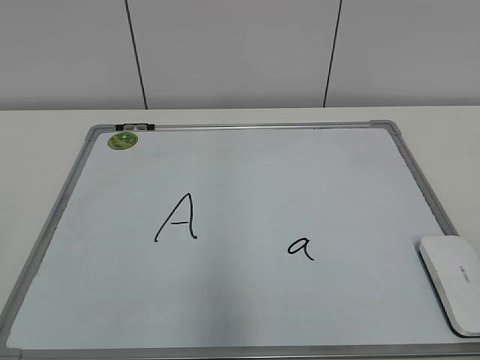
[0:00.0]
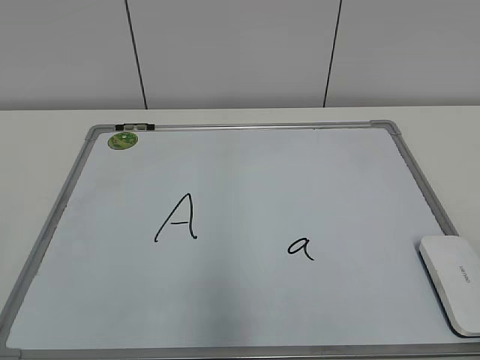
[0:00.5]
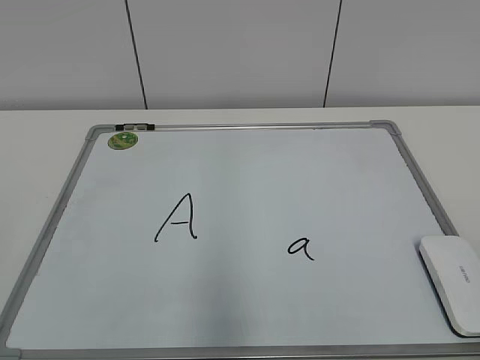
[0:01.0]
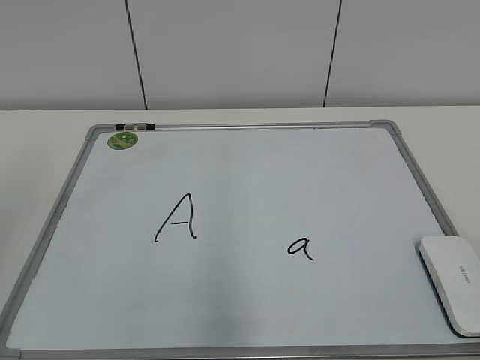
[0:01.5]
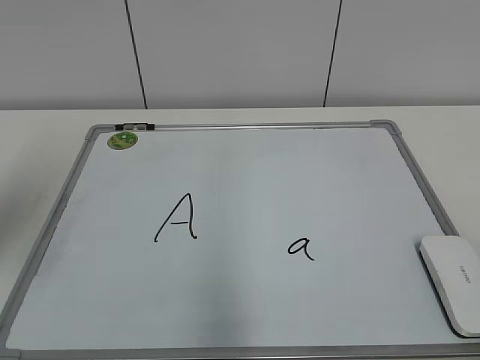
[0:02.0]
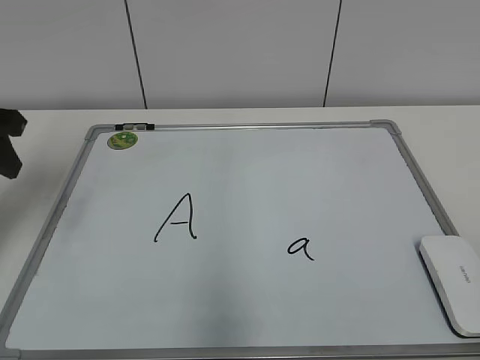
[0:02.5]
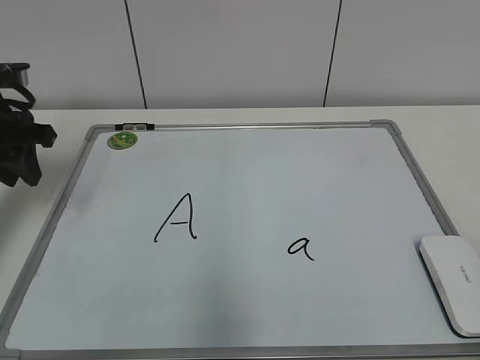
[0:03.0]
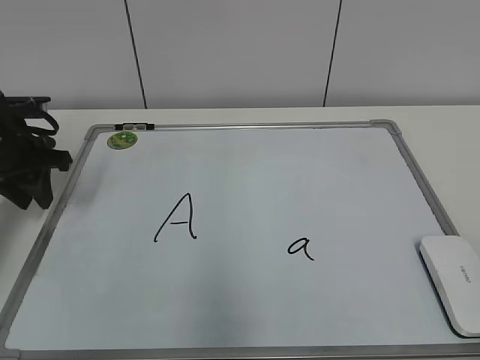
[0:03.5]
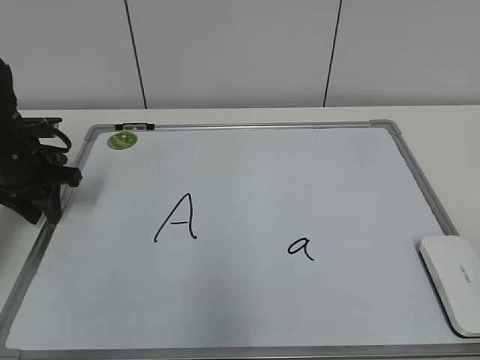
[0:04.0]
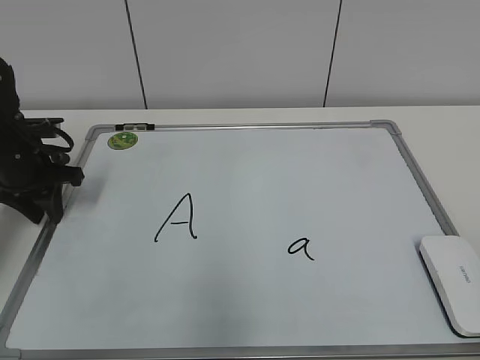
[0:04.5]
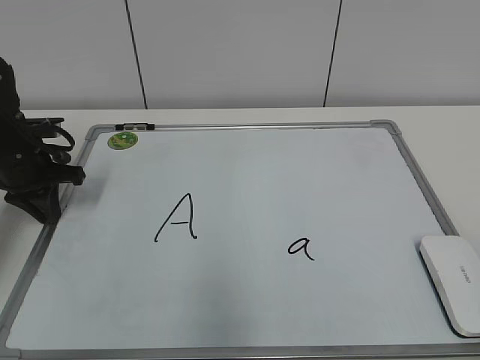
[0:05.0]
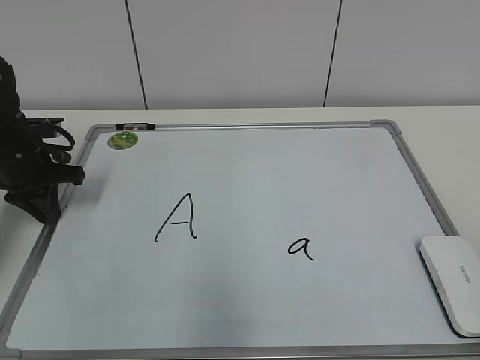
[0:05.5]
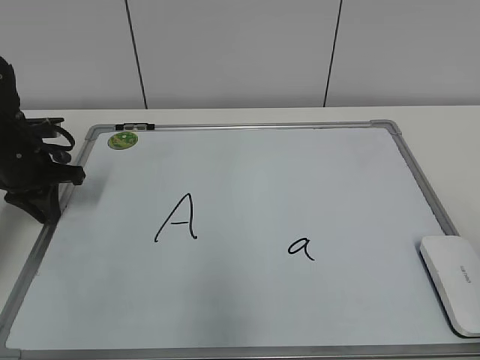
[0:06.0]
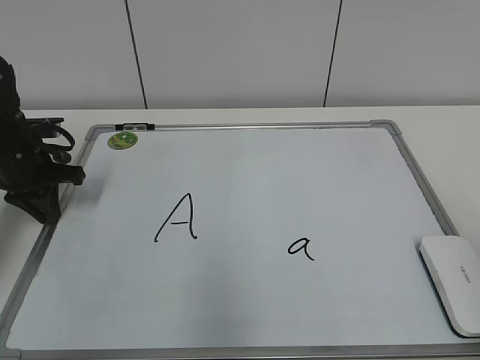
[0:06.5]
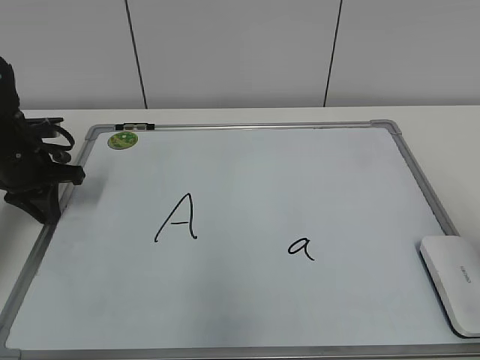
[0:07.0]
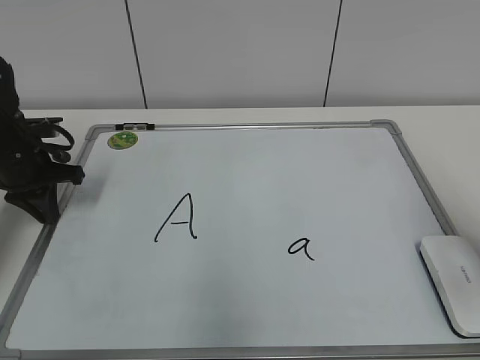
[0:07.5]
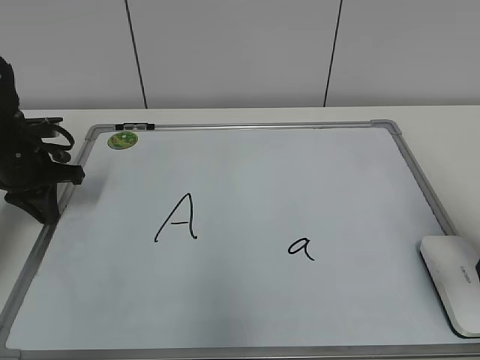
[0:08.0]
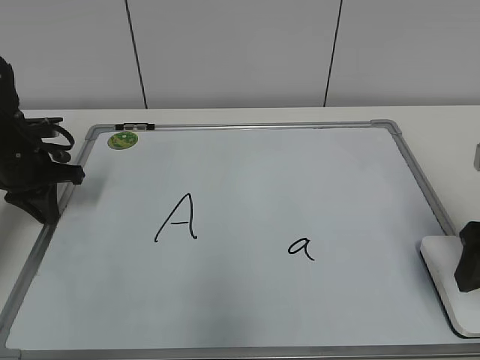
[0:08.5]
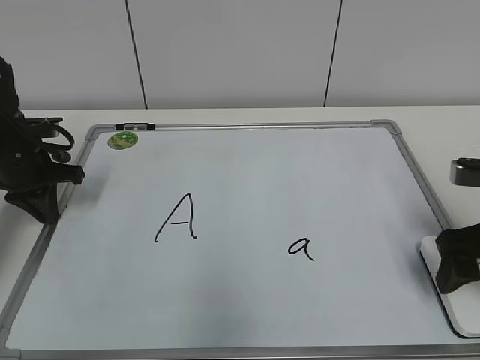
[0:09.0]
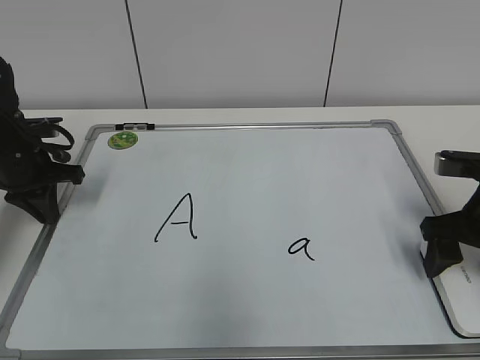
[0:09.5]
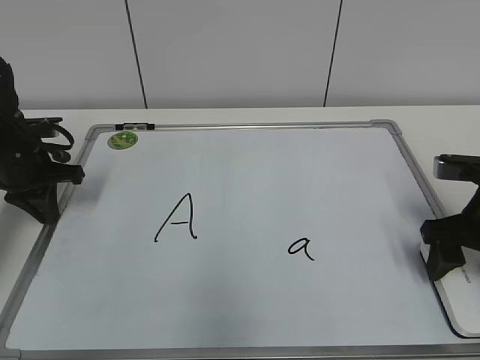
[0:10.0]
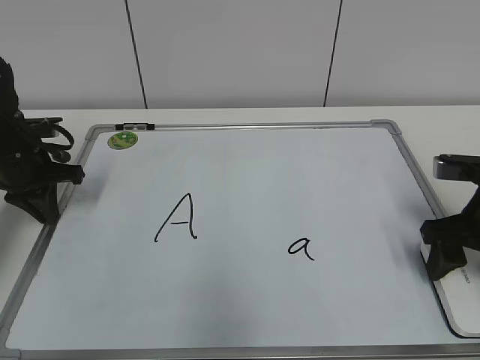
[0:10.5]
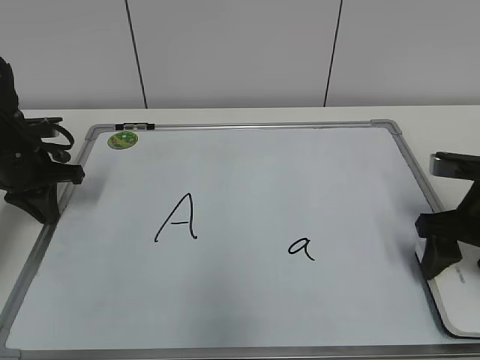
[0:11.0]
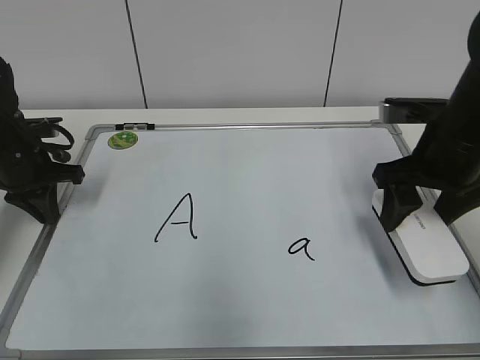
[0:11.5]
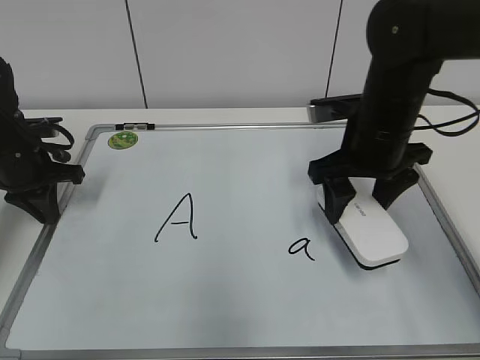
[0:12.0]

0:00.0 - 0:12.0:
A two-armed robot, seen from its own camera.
Task of the whole recording: pick up the eraser on the blackboard and erase the letter "a".
Step, 0:00.0 - 0:04.5: Hold the drawing board steady with your left hand.
Step, 0:05.0 - 0:10.0: Grab the eraser with your right hand.
0:02.0 - 0:04.0: The left gripper is displaced downward and forward by about 25 cm.
0:06.0 - 0:08.0: The right gripper goes about 15 cm forward, and opens its fingers.
0:08.0 - 0:10.0: The right gripper goes approximately 10 cm downward and forward.
0:10.0 - 0:12.0: The right gripper is displaced to the left, forward and upward by some 15 cm.

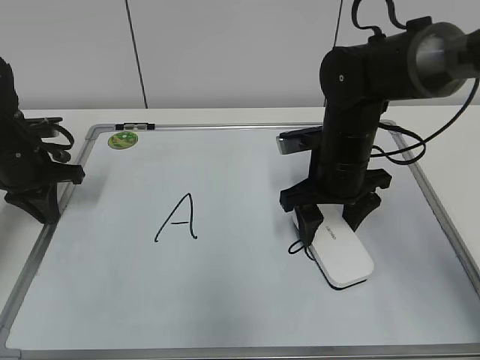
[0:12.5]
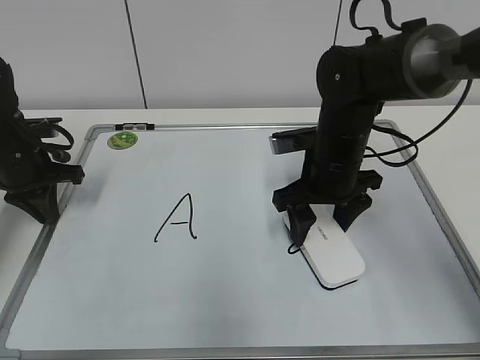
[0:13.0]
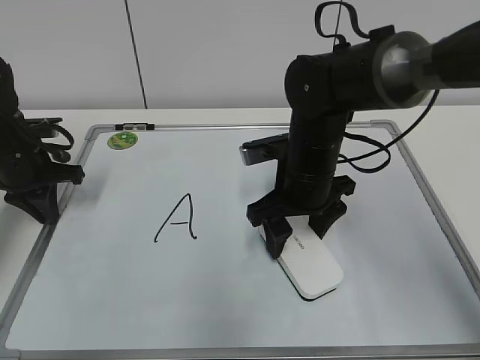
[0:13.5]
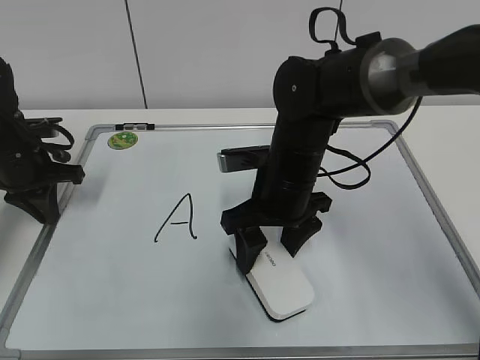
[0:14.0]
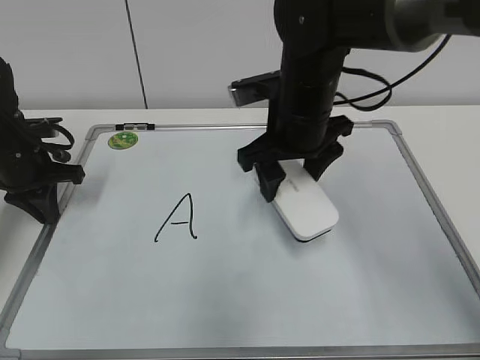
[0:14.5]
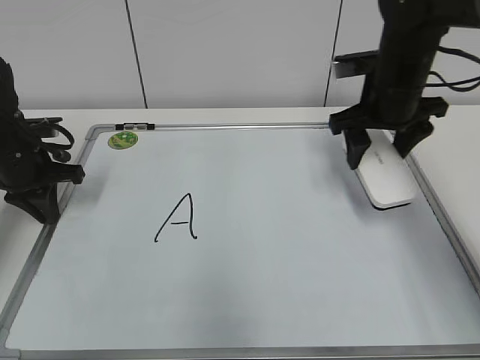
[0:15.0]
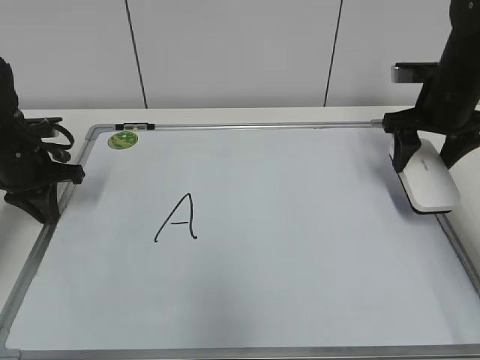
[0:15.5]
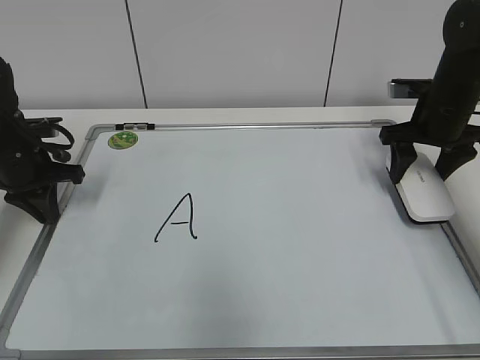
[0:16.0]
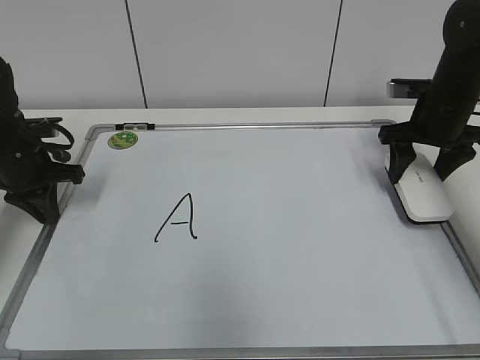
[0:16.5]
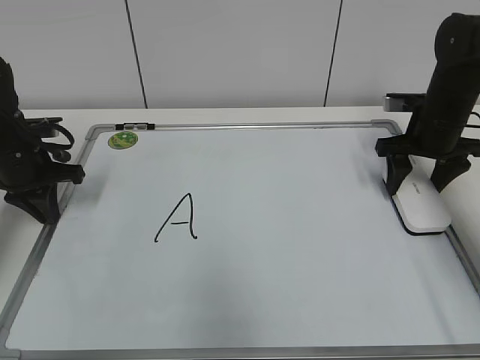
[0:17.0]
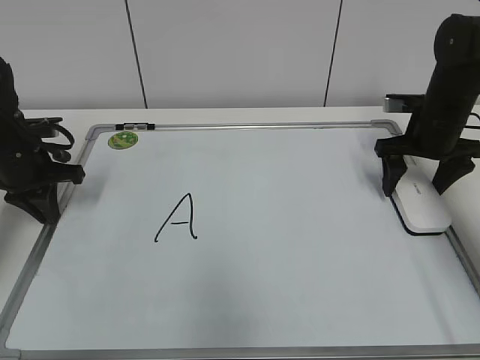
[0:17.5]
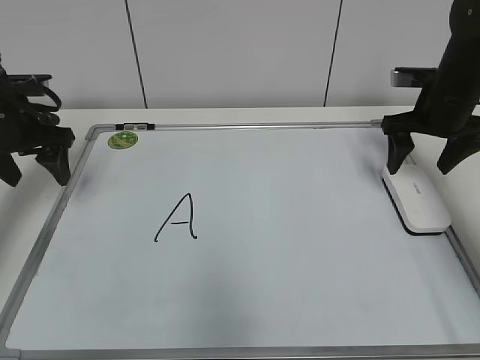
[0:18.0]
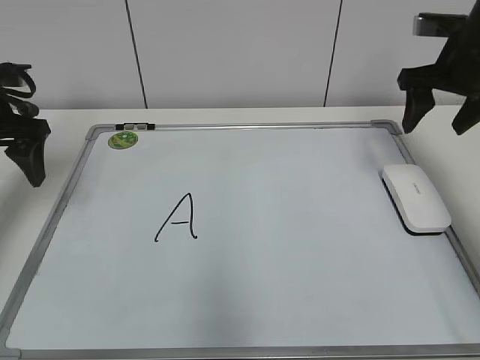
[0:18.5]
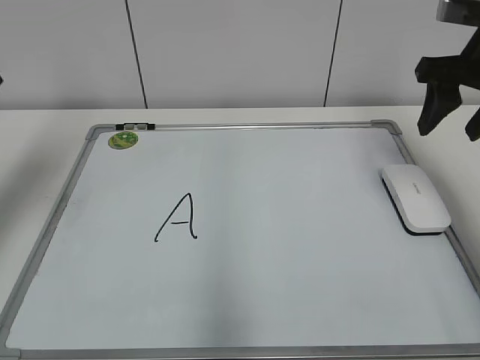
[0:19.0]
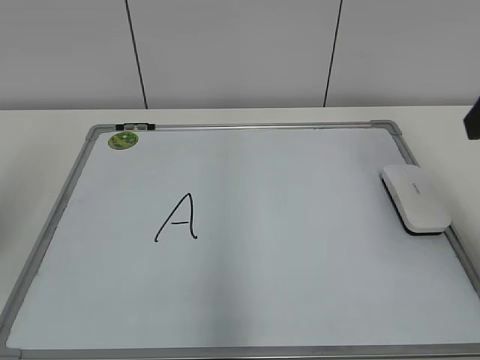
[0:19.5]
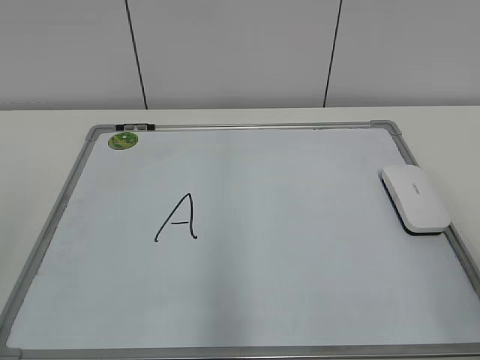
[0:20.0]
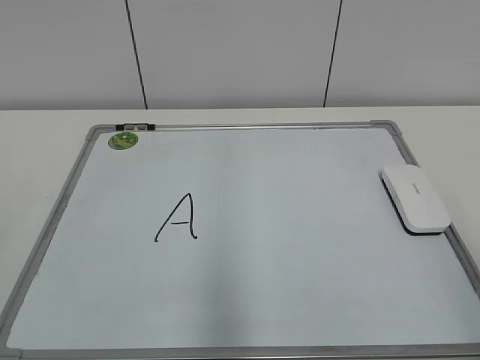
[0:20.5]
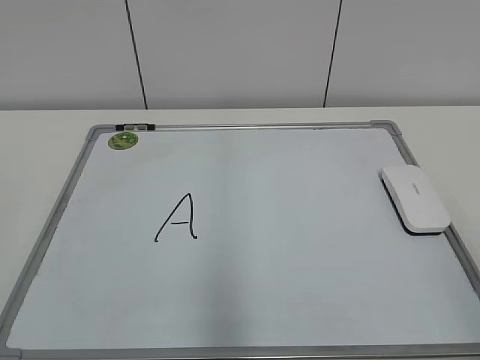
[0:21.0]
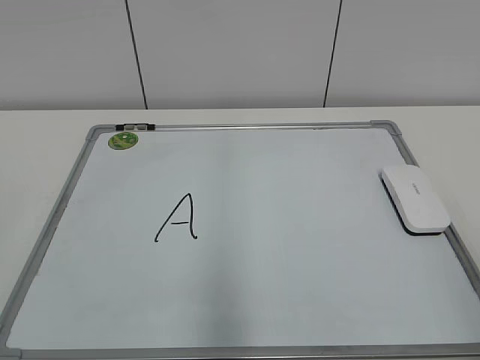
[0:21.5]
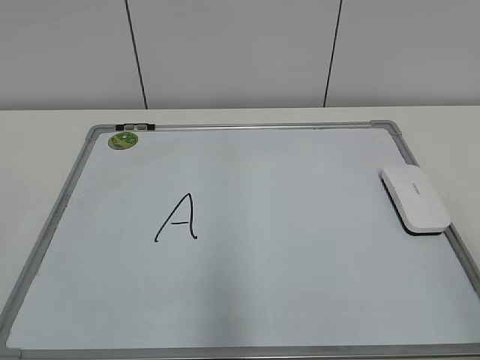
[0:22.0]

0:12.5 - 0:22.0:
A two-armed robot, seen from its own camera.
Task of the whole recording: pick up the eraser on the blackboard and erase the letter "a".
0:12.5 - 0:14.5: The right gripper moves upward and to the left, some 10 cm.
0:14.5 - 0:16.5: The right gripper heads to the right, covering approximately 20 cm.
0:16.5 - 0:18.0: The right gripper opens its fingers; the left gripper heads upward, covering roughly 5 cm, and opens.
0:18.0 - 0:20.0: Both grippers travel together backward, approximately 30 cm. The right gripper closes its fingers.
